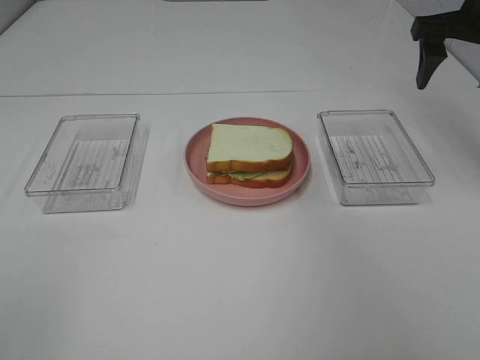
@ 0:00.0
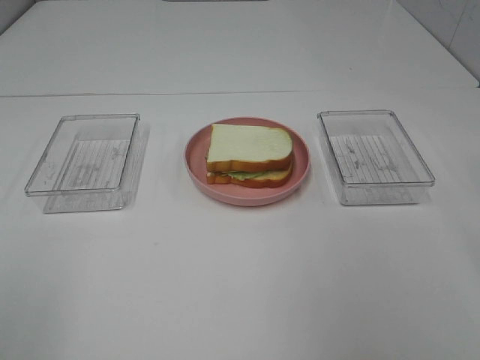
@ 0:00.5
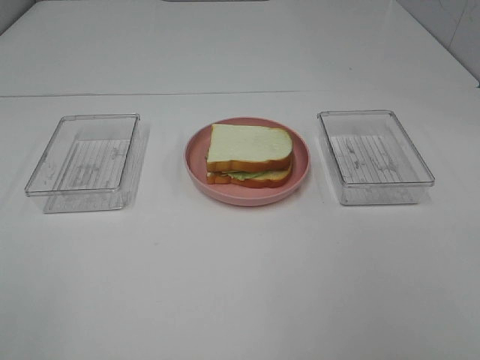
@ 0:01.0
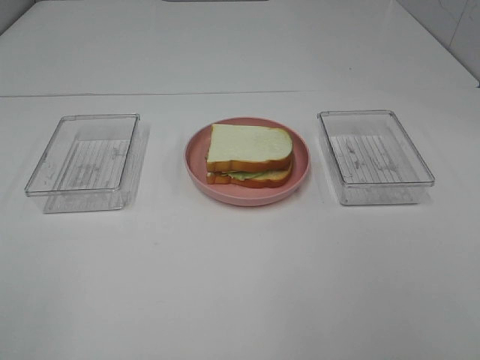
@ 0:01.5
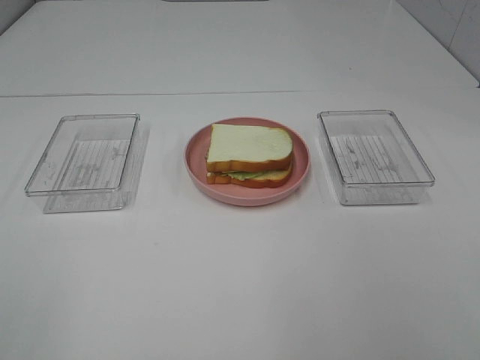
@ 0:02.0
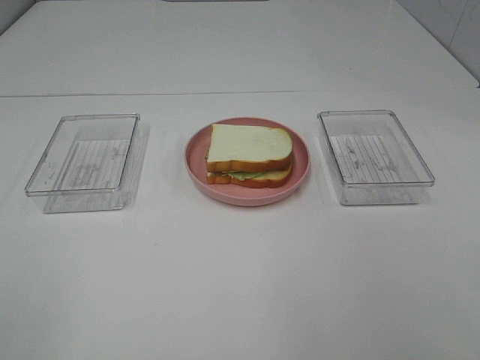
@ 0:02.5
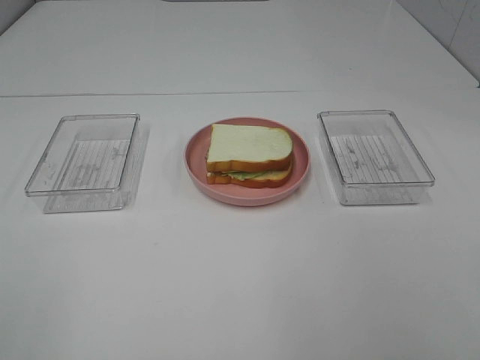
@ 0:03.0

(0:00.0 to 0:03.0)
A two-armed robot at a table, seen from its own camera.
Task of the whole recording: Make sandwiches.
0:00.0 - 0:01.5: The right gripper moves backward, about 40 cm.
0:01.5 - 0:03.0: The two grippers keep their place.

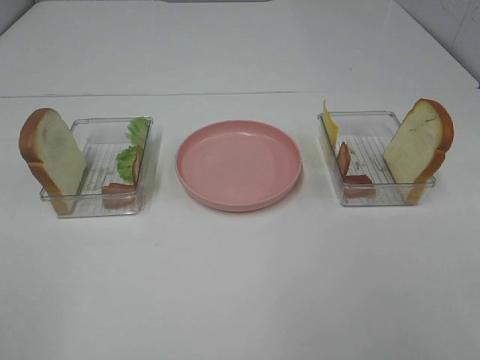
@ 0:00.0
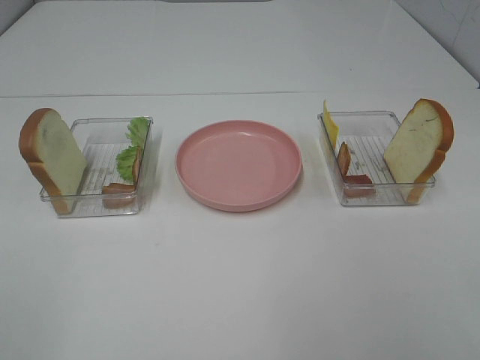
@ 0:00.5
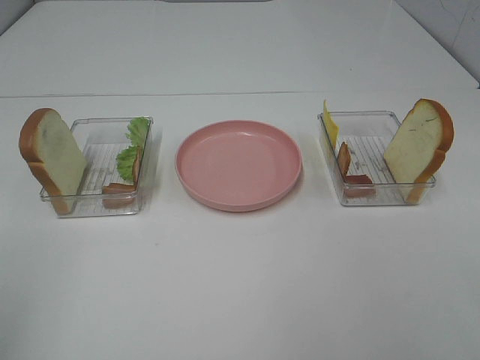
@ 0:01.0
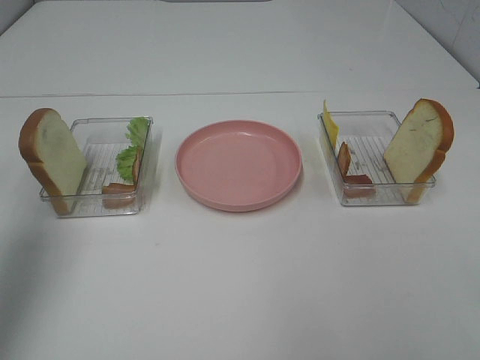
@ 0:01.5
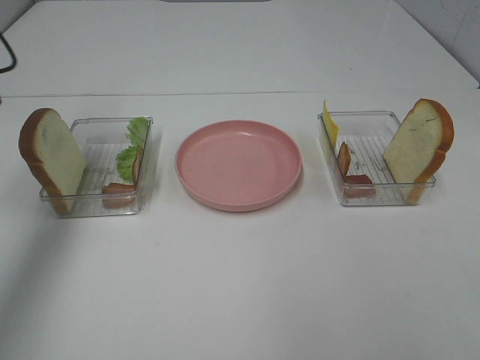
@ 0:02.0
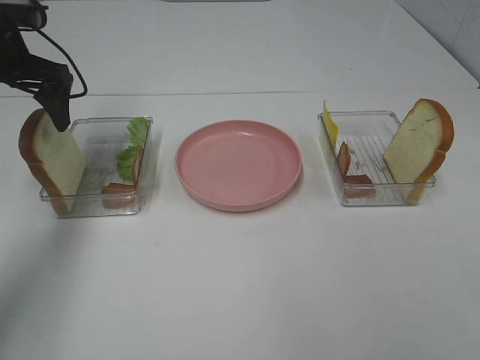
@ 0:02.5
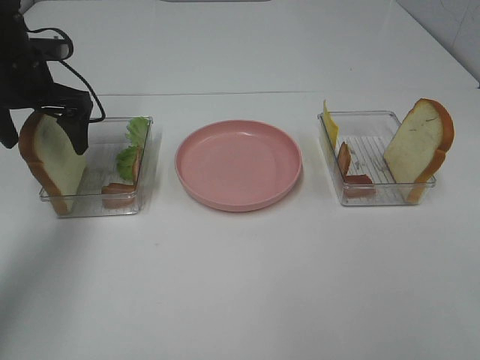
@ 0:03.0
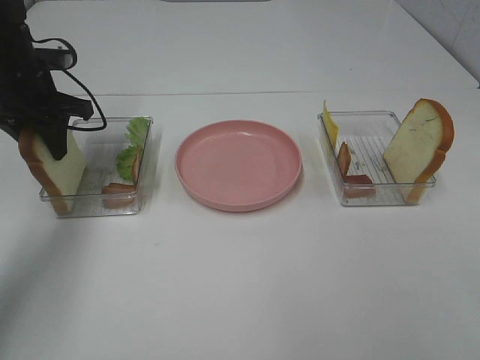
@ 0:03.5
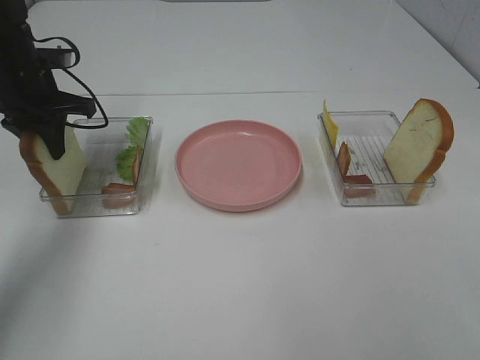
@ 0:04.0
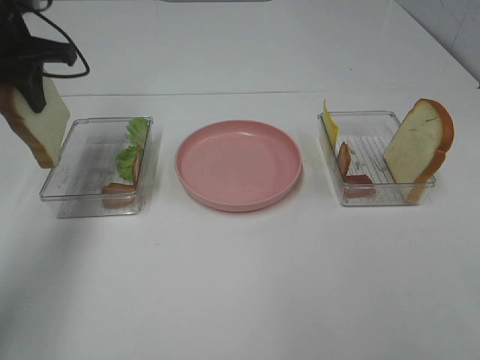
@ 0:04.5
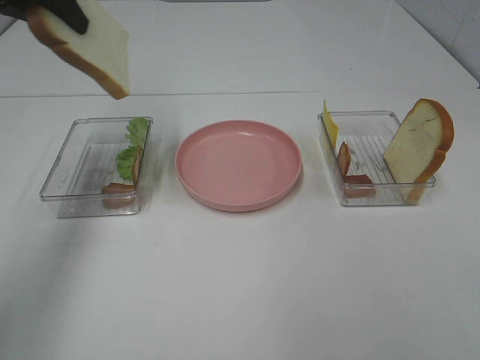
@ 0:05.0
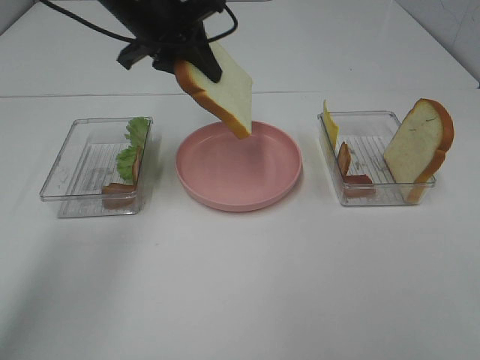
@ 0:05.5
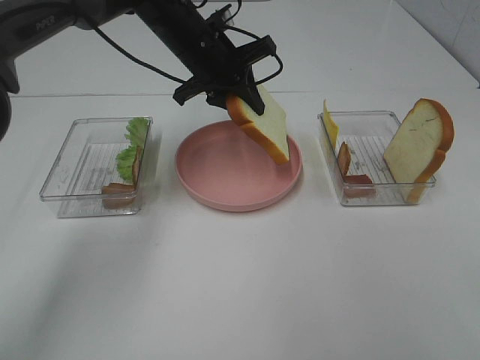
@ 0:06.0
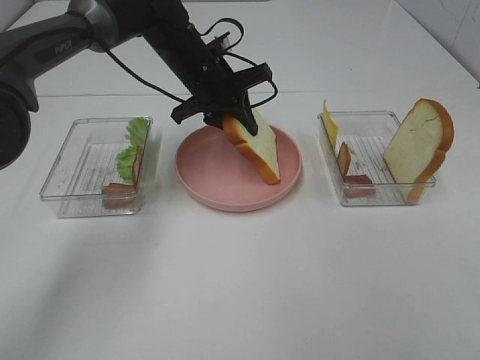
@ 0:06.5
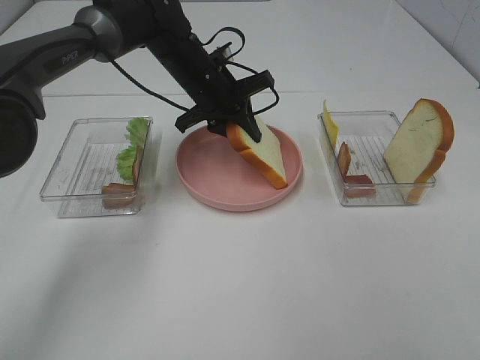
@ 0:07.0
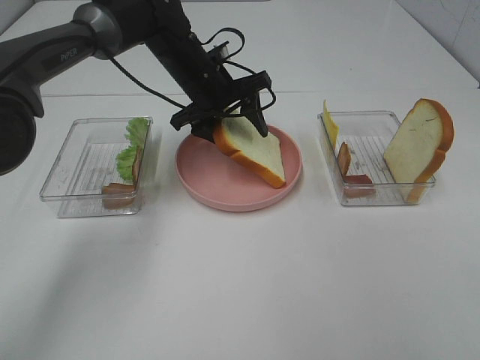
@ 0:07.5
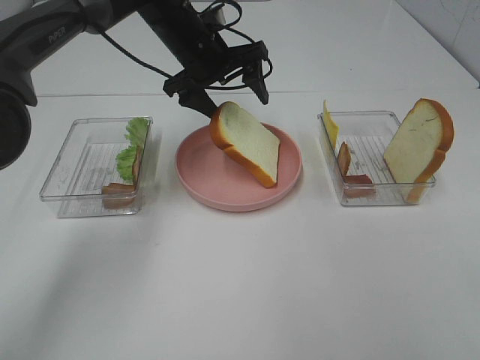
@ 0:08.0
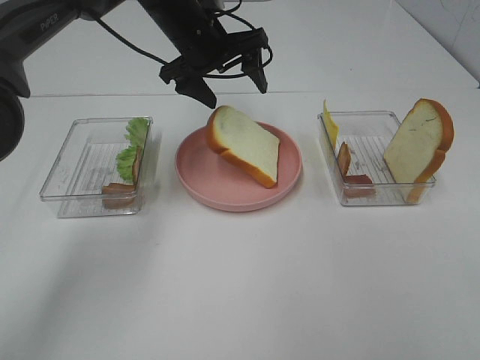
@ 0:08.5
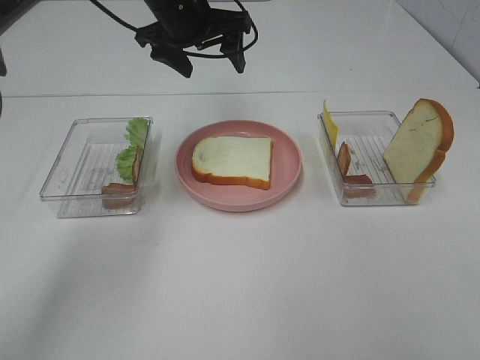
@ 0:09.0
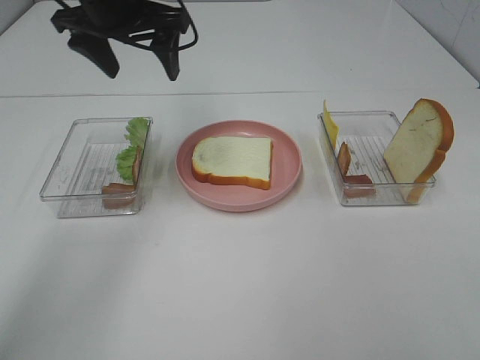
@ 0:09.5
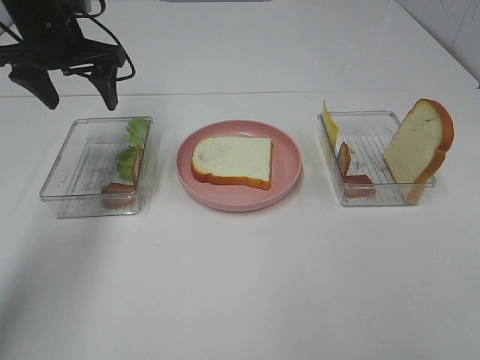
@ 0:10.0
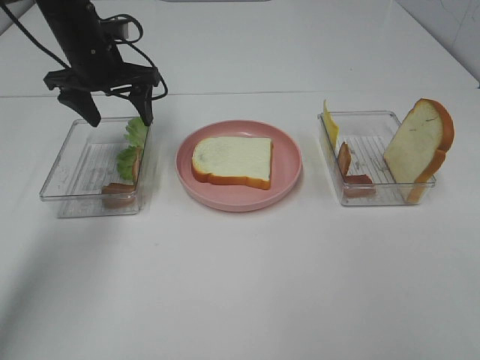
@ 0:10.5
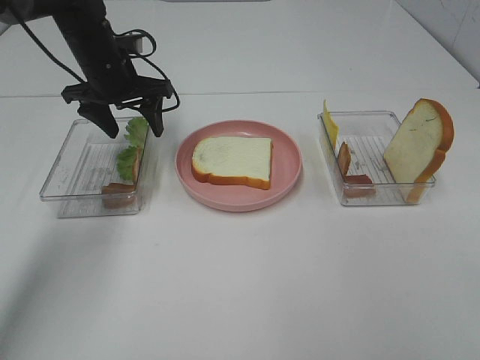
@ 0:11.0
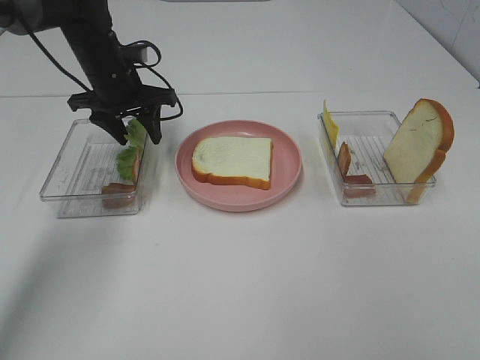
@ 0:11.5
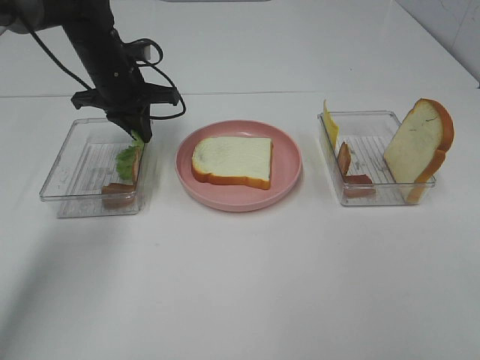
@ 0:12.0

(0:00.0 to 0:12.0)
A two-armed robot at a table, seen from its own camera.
Task of the whole recording: Make sandwiches.
Step, 0:00.0 - 0:03.5: Left hand:grab the bread slice.
Step, 0:04.0 - 0:08.5: Left hand:place the bread slice on the plate.
0:00.0 - 0:02.0: The left gripper travels forward by approximately 35 cm.
0:02.0 - 0:04.0: The left gripper is displaced downward and forward by some 15 cm, and closes up.
0:04.0 - 0:06.0: The left gripper goes about 20 cm to the right.
0:06.0 - 0:08.0: The left gripper opens up.
0:08.0 - 0:10.0: The left gripper is displaced to the left by about 15 cm.
0:10.0 - 0:12.0: The left gripper goes roughly 10 cm downward, and closes its fingers.

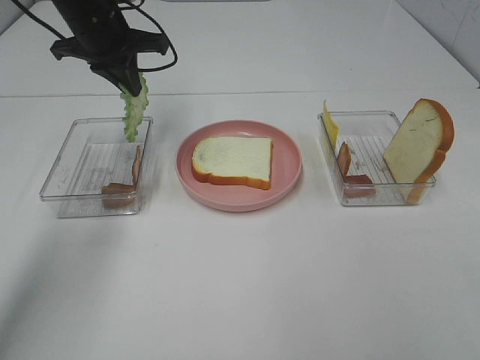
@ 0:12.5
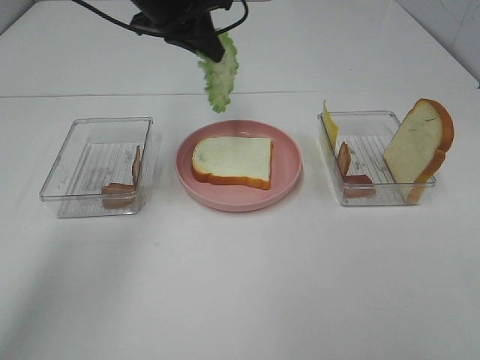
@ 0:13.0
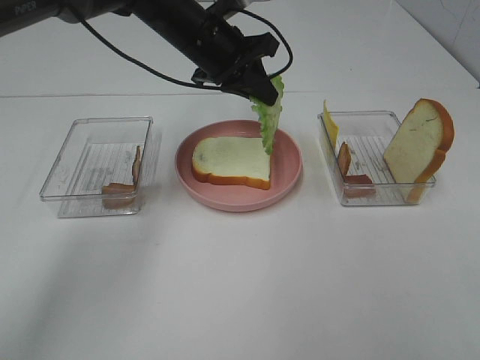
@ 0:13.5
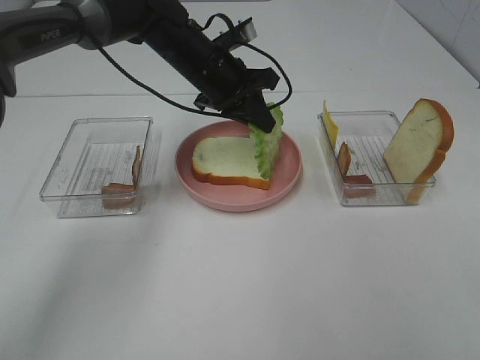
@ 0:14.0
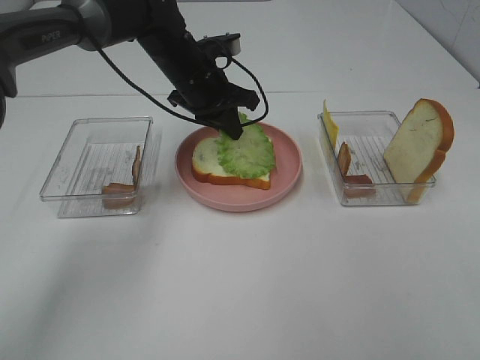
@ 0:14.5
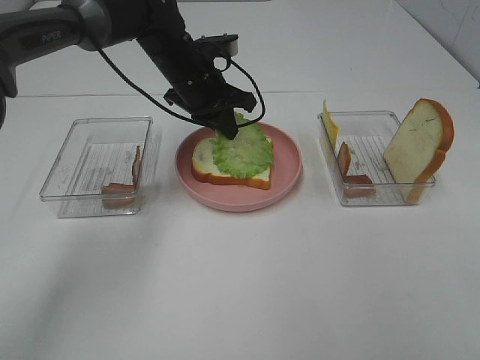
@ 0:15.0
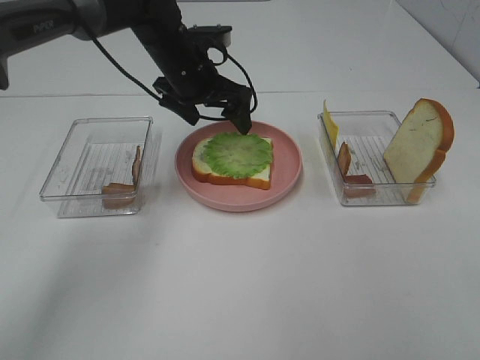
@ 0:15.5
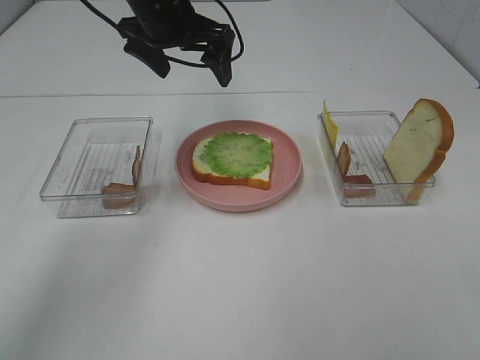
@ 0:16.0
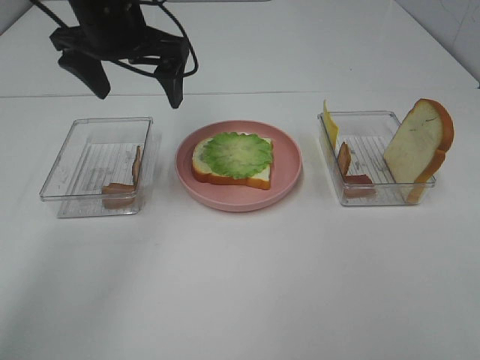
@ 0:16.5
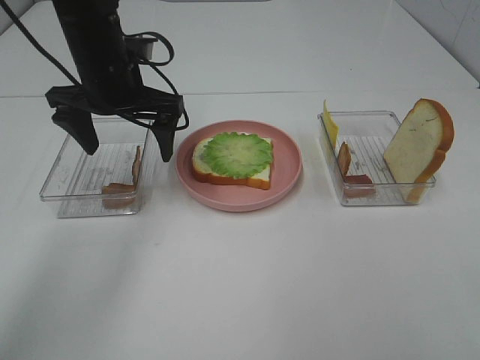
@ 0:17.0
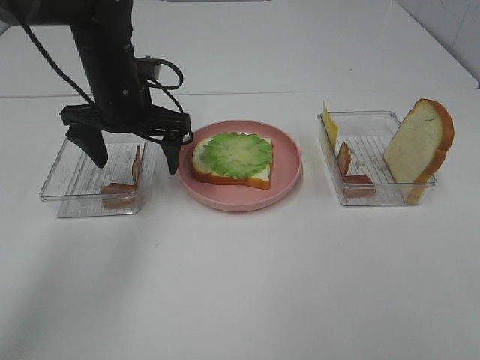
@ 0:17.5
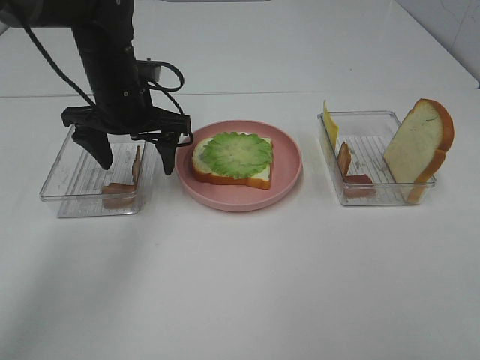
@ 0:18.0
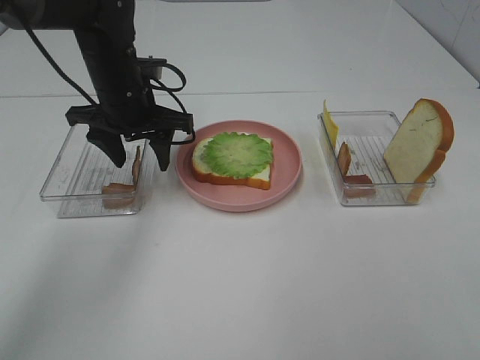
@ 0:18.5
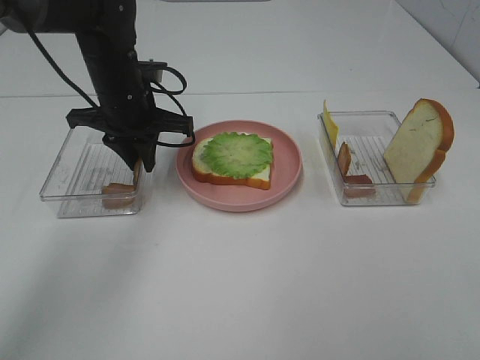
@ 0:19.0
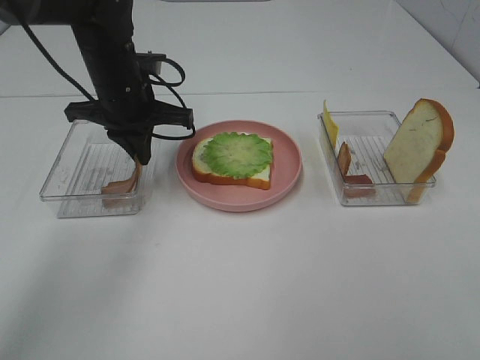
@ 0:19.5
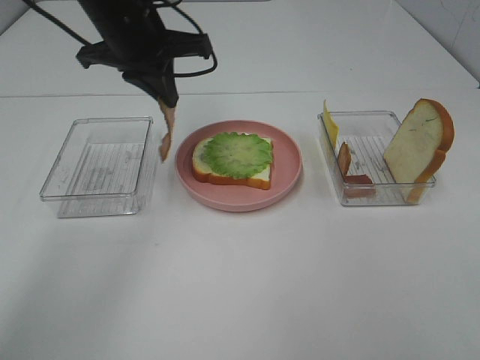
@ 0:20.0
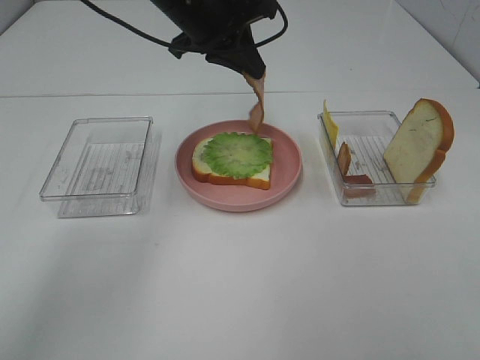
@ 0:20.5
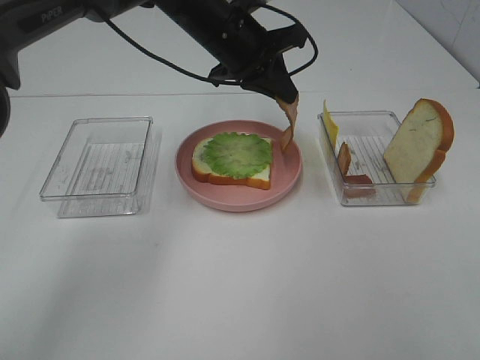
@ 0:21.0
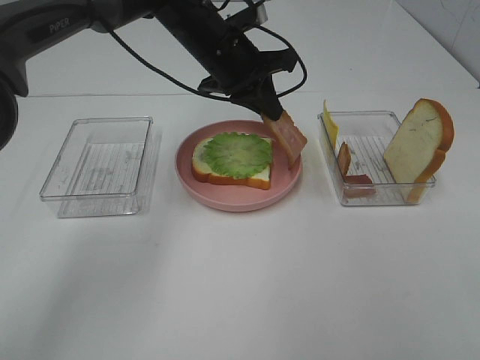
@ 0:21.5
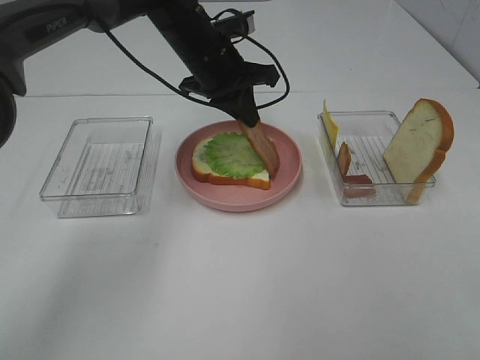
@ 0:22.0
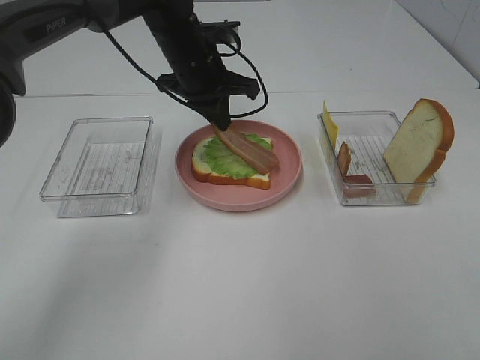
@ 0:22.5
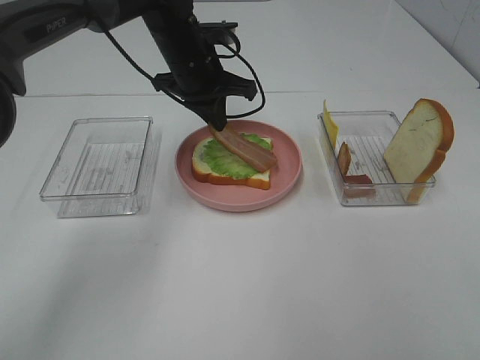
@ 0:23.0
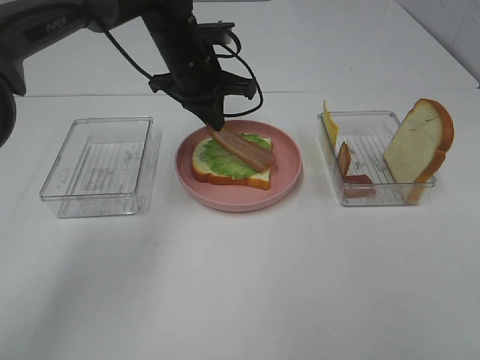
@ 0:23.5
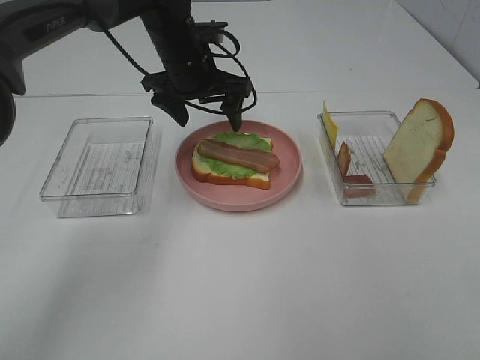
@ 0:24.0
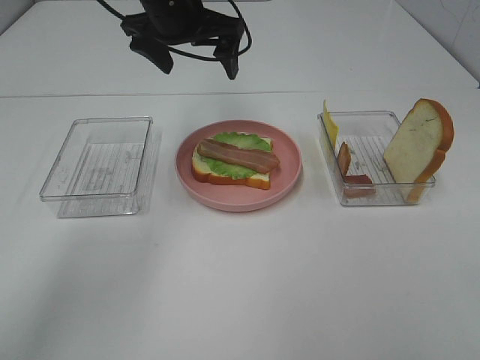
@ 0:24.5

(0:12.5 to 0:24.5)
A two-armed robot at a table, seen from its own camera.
Task of the whole recording: Make sandwiches.
Step, 0:12.5 - 0:15.0: Left hand:place the lettuce slice on the bread slice.
Step, 0:15.5 - 0:19.0: Left hand:grab the bacon.
Step, 0:19.5 - 0:23.5: Left hand:place bacon on lettuce slice.
0:12.5 - 0:14.5: The left gripper shifts about 15 cm to the right and downward.
0:14.5 - 0:16.5: The left gripper travels upward, to the left and backward by about 15 cm, and opens up.
0:16.5 - 0:18.5: The left gripper heads downward, covering some 10 cm, and closes.
0:18.5 - 0:20.5: The left gripper goes approximately 15 cm upward and to the right, and closes its fingers.
0:20.5 - 0:22.5: The left gripper shifts approximately 10 cm downward.
0:22.5 - 0:24.5: The left gripper is displaced upward by roughly 10 cm, and opens up.
